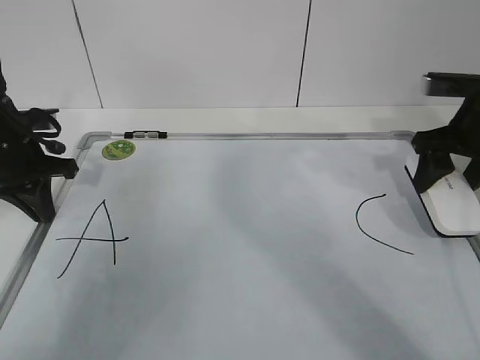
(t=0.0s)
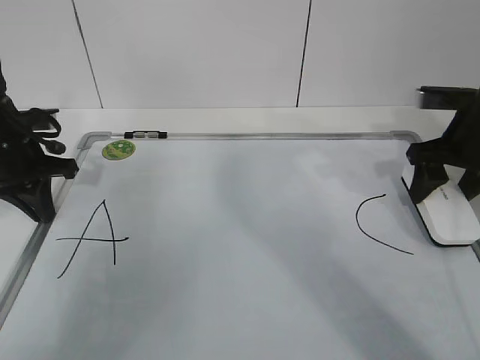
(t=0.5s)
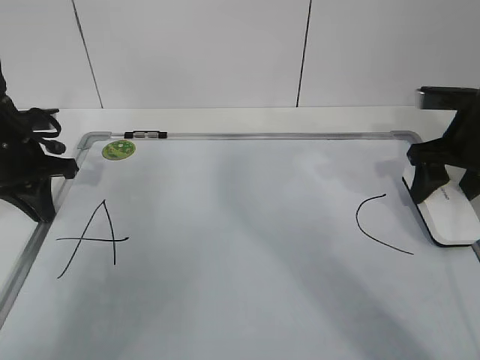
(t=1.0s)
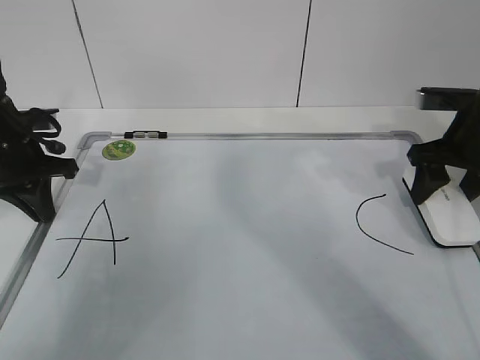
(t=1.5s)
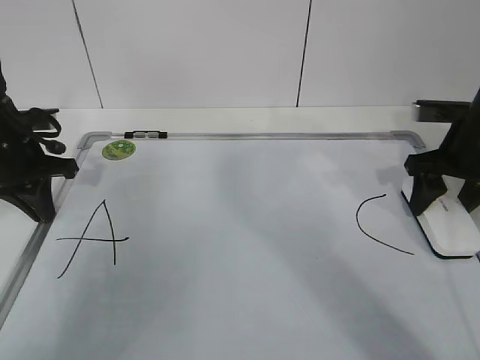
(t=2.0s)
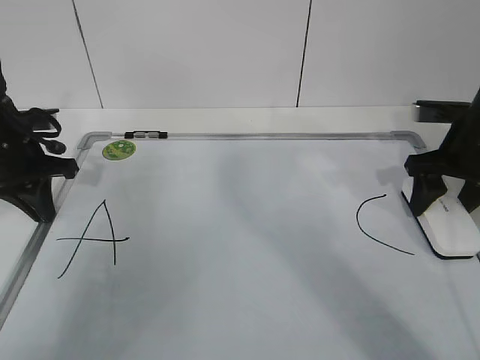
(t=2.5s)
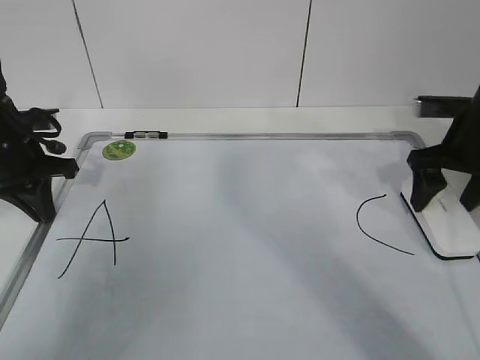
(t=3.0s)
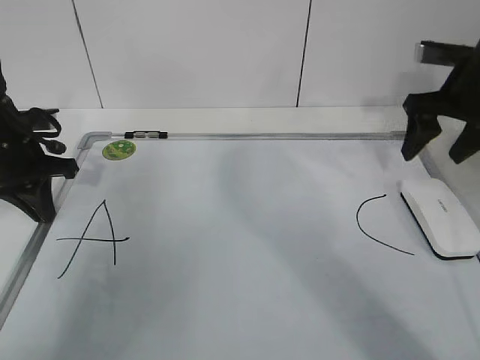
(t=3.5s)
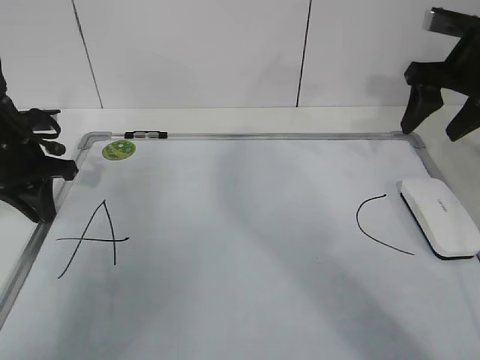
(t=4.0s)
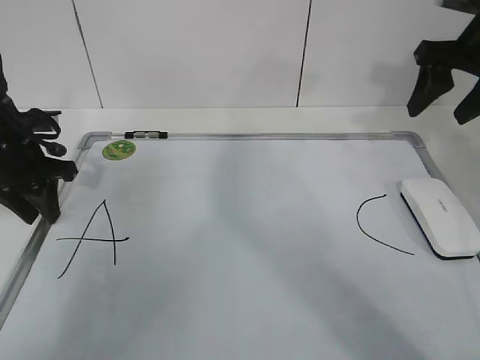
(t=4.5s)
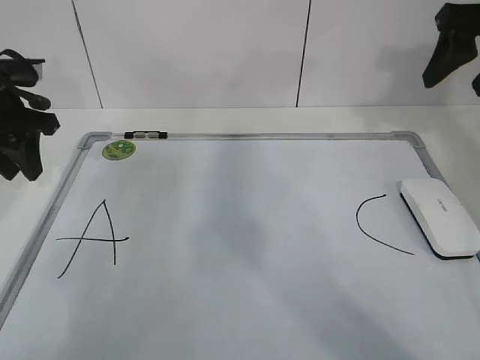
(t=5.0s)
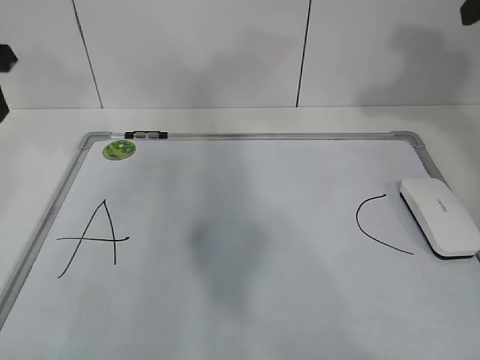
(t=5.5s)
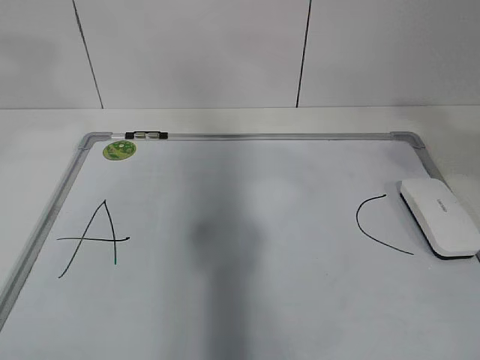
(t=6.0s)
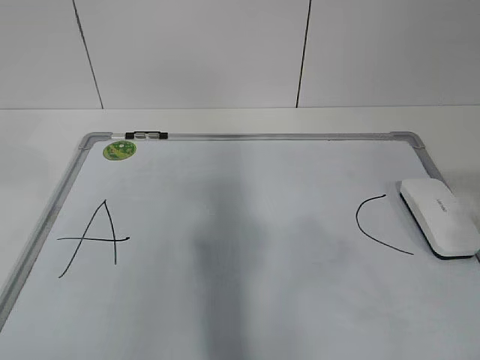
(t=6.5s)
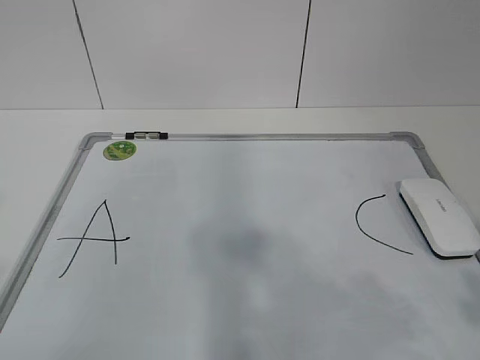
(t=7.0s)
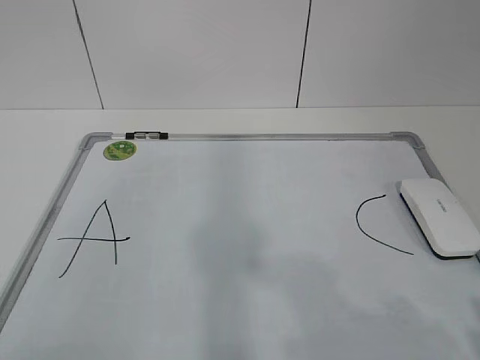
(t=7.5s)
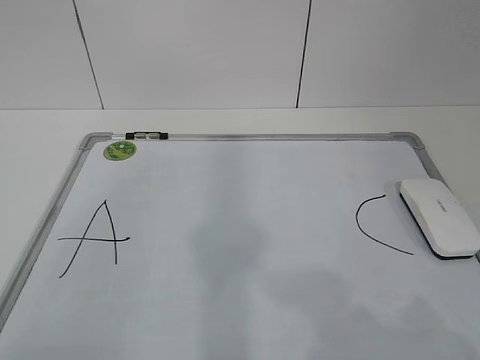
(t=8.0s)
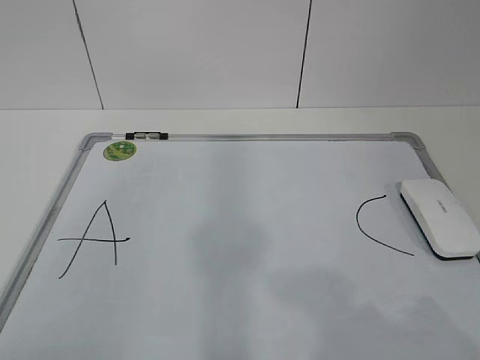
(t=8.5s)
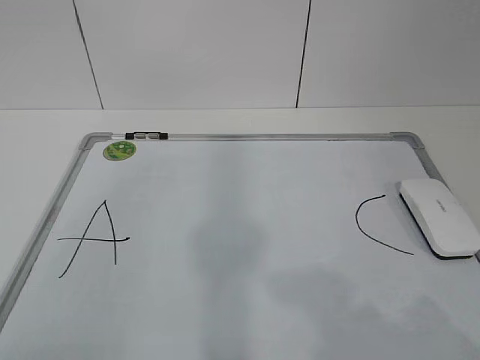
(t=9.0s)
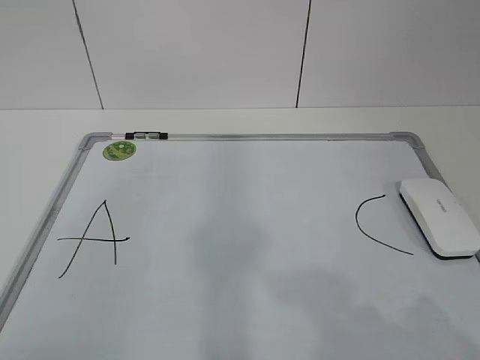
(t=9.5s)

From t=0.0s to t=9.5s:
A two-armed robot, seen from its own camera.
Task of the whole recording: pick up the eraser on the blackboard and erase the letter "B".
From t=0.0s to t=2.0s: The grippers move only a little.
From t=2.0s to t=4.0s: The right gripper travels upward by approximately 10 cm, and opens its fingers.
From t=4.0s to t=5.5s: The right gripper shifts approximately 15 cm upward and backward, while the left gripper travels upward by some 15 cm, and opens its fingers.
From t=5.5s to t=7.5s: The left gripper goes some 35 cm backward, while the right gripper heads backward and downward, covering some 35 cm.
